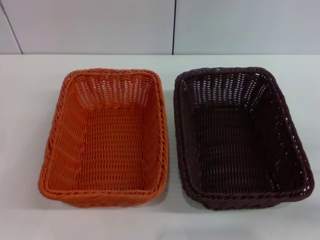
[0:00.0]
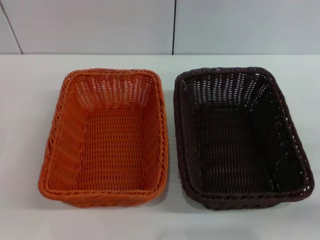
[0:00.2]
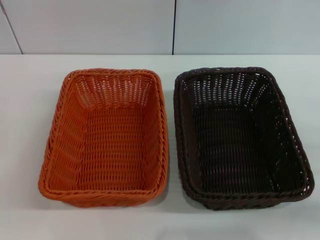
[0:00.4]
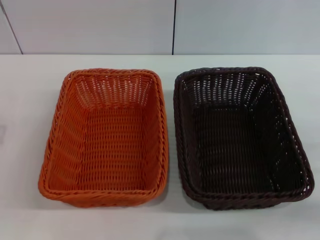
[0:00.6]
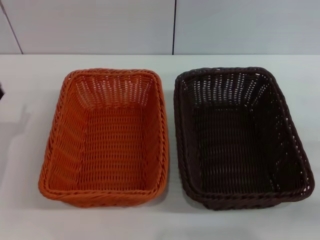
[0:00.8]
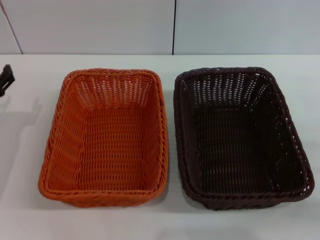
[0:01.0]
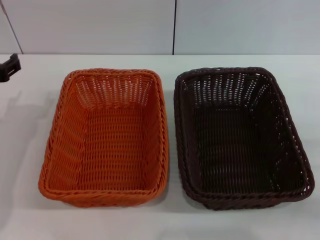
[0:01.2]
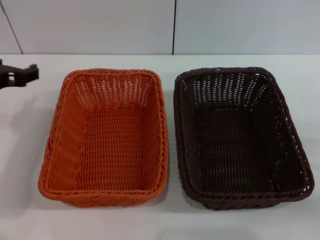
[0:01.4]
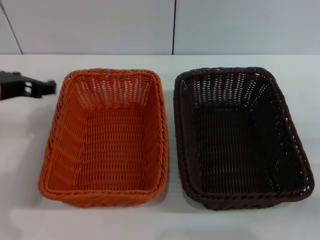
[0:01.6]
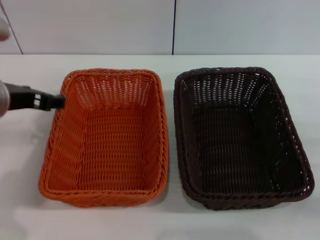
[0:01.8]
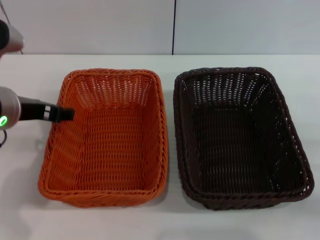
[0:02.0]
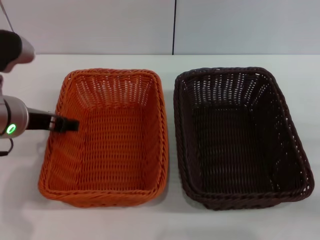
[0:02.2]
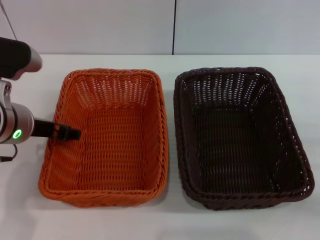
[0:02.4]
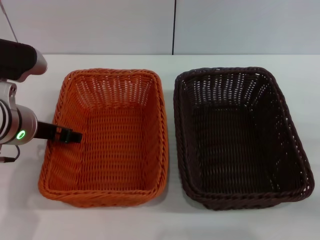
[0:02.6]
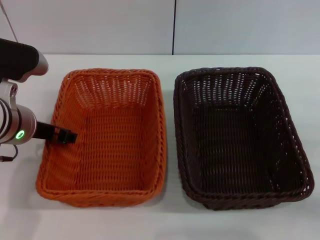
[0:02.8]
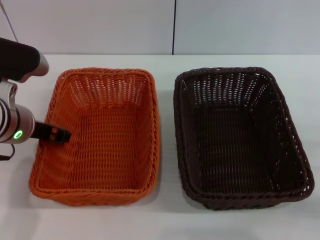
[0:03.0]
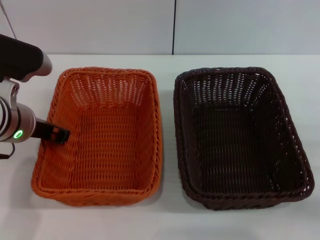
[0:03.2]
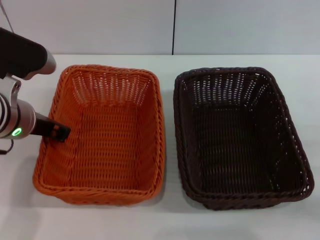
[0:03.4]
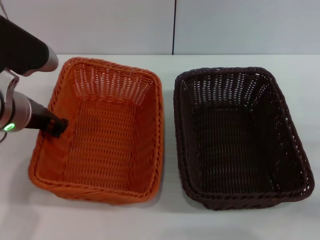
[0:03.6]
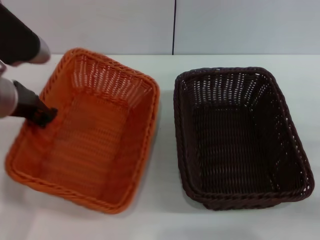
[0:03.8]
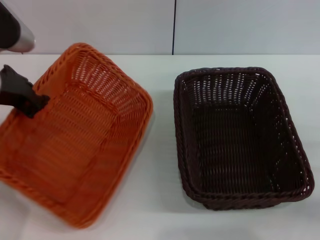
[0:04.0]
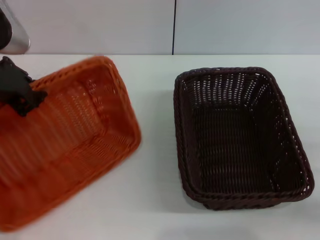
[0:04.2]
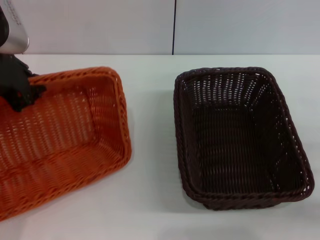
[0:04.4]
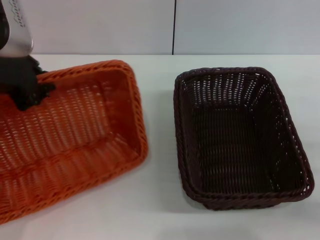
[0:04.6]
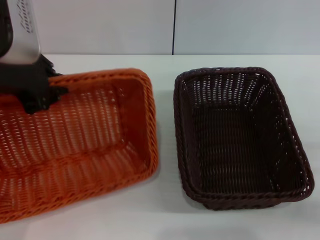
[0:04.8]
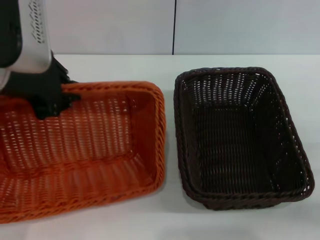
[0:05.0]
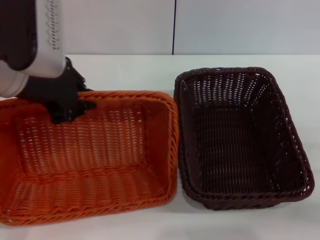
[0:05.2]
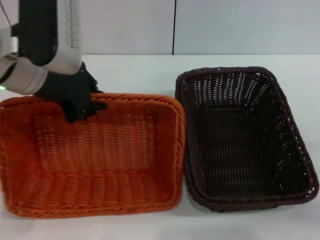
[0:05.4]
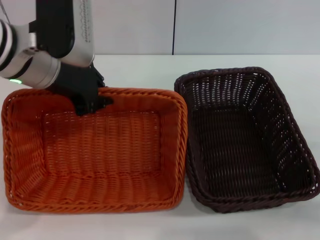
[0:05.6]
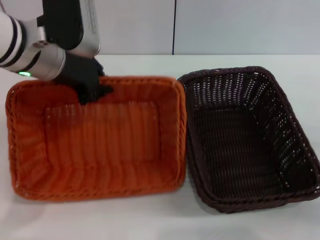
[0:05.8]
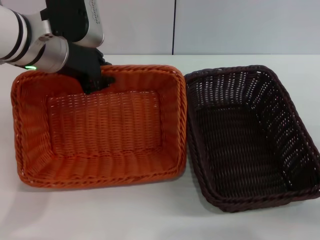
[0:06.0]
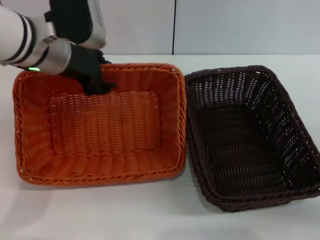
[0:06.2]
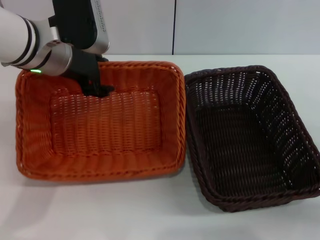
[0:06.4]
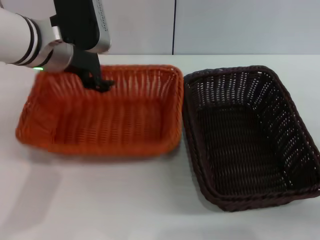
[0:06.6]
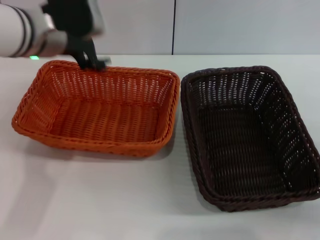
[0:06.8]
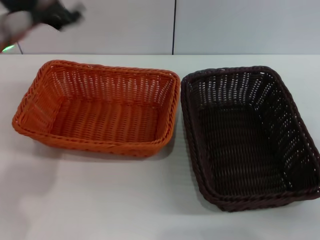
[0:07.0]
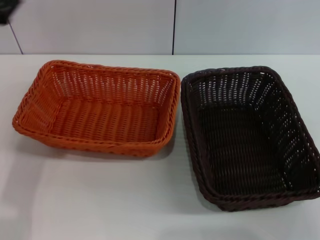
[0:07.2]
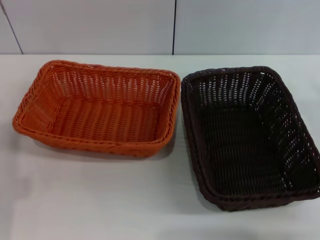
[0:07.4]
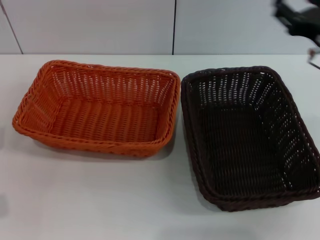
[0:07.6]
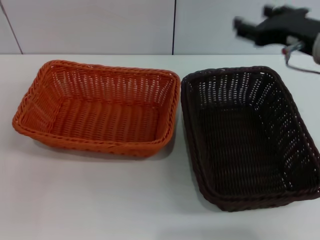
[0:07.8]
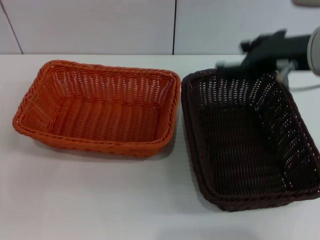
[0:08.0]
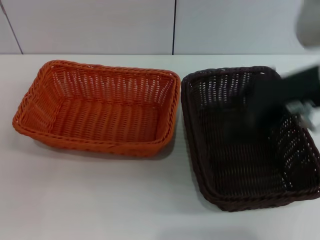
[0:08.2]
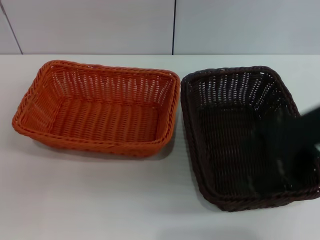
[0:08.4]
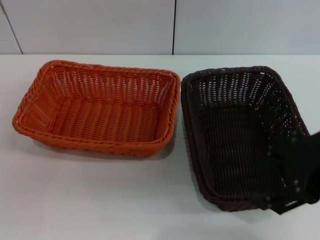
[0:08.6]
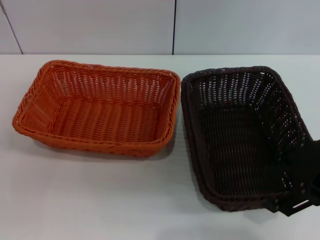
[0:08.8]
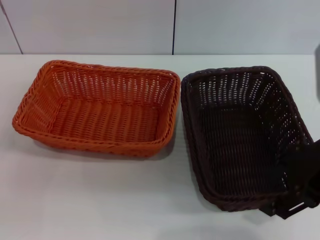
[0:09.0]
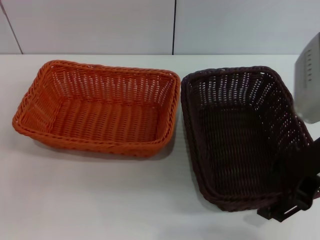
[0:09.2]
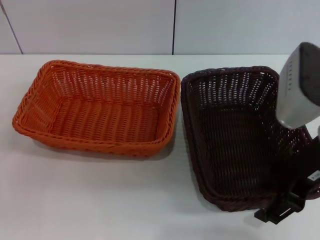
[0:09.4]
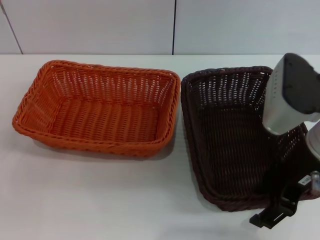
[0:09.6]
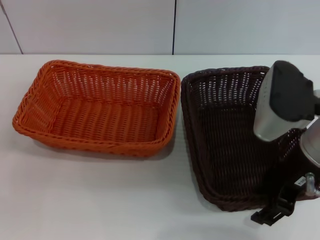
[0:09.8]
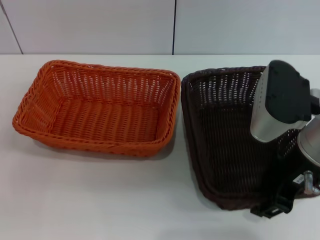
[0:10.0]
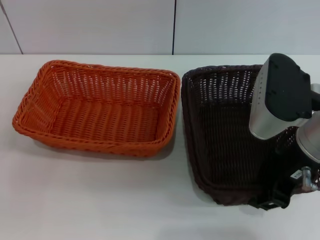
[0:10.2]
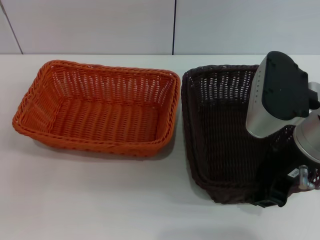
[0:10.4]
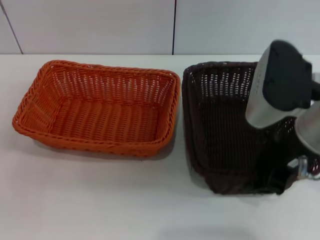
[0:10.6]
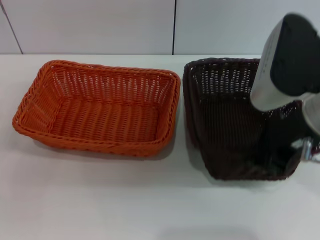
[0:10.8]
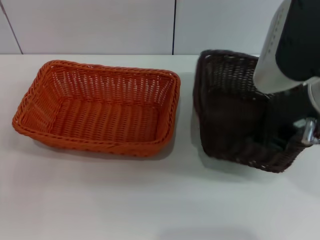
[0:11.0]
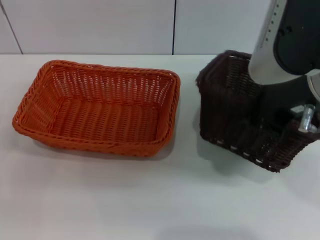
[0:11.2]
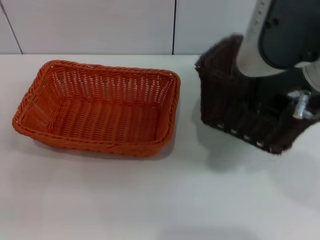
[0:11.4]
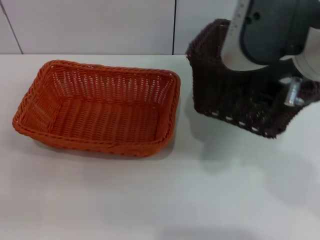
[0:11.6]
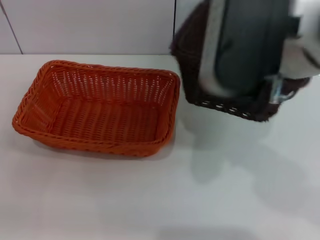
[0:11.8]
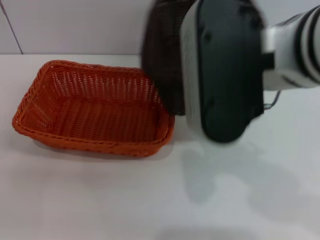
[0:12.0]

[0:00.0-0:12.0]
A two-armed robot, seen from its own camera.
Step, 0:00.0 to 0:03.6: Pick up the light basket with the left gripper.
Step, 0:03.8 to 0:06.6: Place the light basket in the center of view with the left gripper.
Step, 0:06.8 to 0:10.8: Pick up the dark basket with the right gripper.
0:00.0 to 0:01.6: The left gripper shifts some 20 cm upward, to the right and forward.
0:01.6 to 0:03.0: The left gripper moves roughly 5 cm.
0:03.0 to 0:04.4: The left gripper heads upward, covering approximately 10 cm, and closes its fingers.
0:04.4 to 0:06.0: The left gripper goes about 10 cm forward and to the right.
0:06.0 to 0:07.6: The left gripper goes about 25 cm backward, downward and to the left, and opens up. Meanwhile the right gripper is displaced upward, to the left and forward by about 20 cm.
0:07.6 to 0:09.0: The right gripper heads upward and backward, covering roughly 10 cm.
0:09.0 to 0:10.4: The right gripper moves about 5 cm, and closes its fingers.
0:10.4 to 0:12.0: The right gripper moves upward and to the left, about 10 cm.

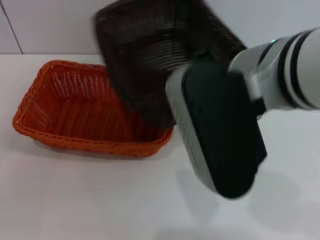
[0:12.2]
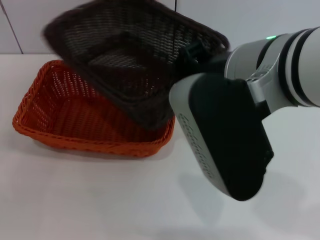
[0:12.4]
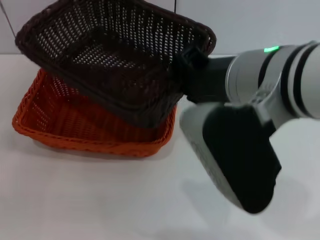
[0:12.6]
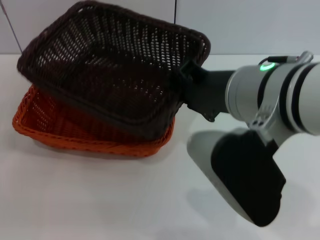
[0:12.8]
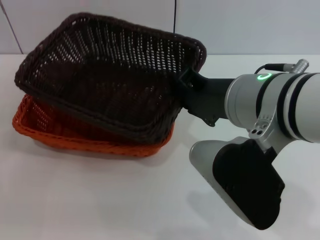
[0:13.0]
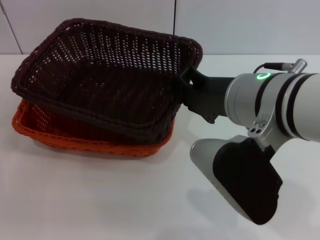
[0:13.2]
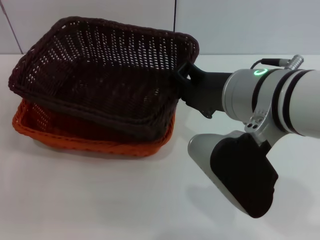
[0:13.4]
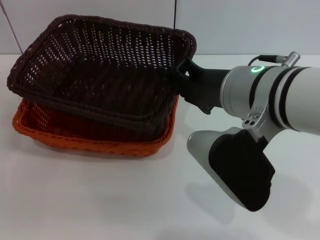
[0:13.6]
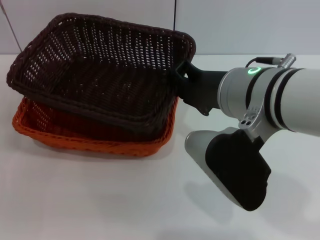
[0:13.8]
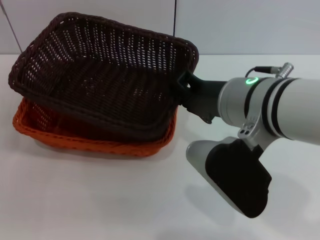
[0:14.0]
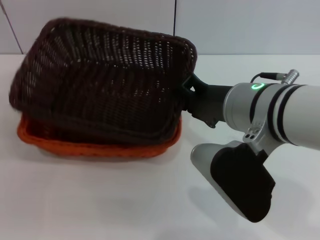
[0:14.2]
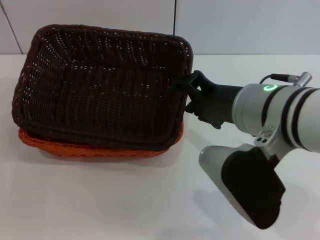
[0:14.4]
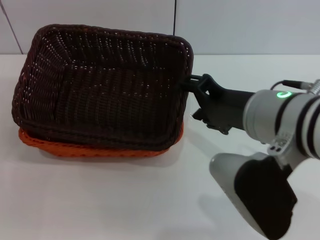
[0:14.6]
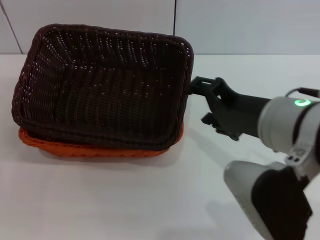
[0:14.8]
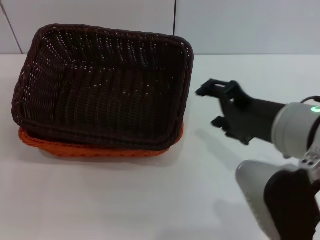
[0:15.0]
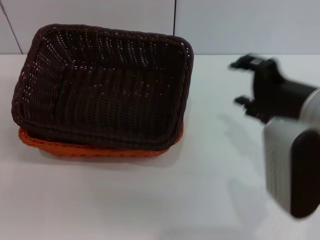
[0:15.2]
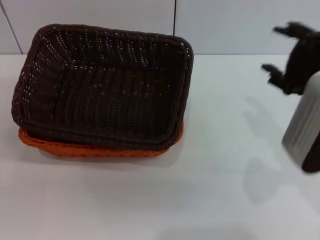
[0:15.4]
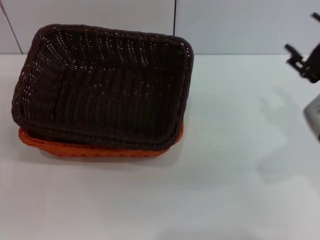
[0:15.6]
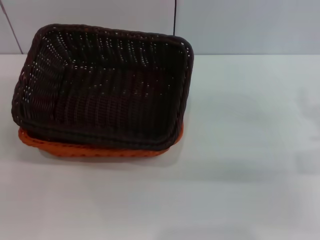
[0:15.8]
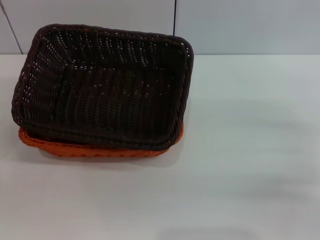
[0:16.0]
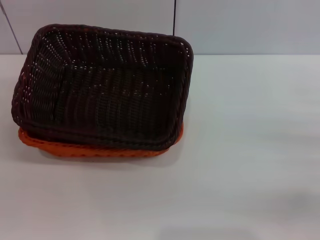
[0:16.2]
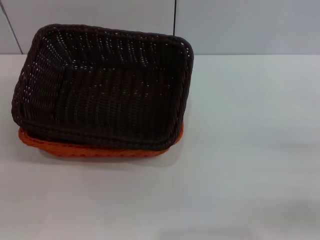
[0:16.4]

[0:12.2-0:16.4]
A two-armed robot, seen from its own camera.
Step, 0:12.2 to 0:14.2: Place the dark basket on the light basket with the right gripper.
0:12.2 to 0:13.6: The right gripper goes approximately 5 cm downward.
0:13.6 to 0:15.0: The right gripper travels to the right by approximately 5 cm, and opens.
0:15.0 to 0:16.4: The right gripper goes roughly 25 cm to the right and downward.
